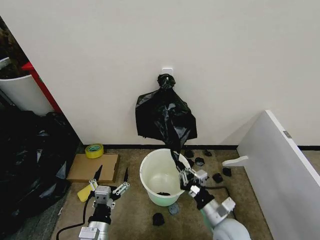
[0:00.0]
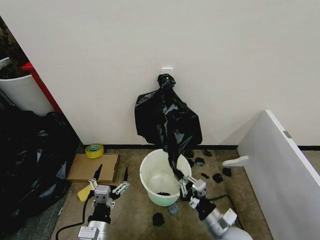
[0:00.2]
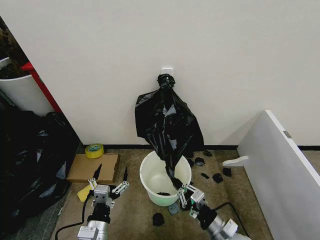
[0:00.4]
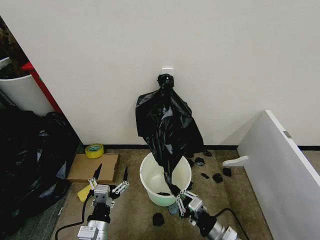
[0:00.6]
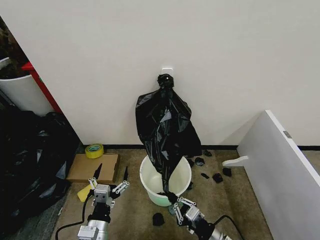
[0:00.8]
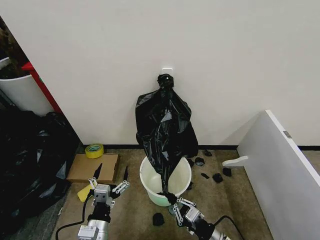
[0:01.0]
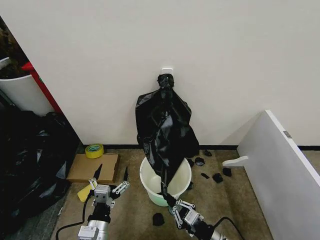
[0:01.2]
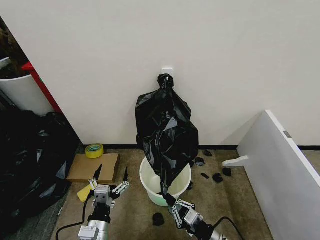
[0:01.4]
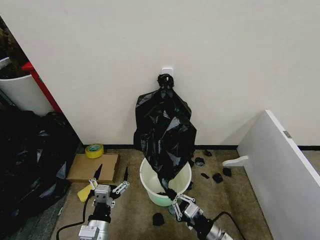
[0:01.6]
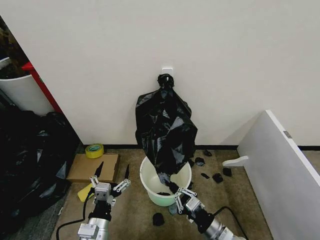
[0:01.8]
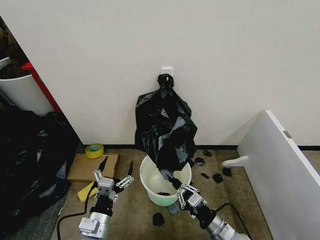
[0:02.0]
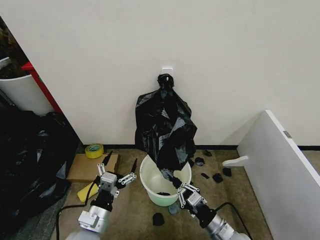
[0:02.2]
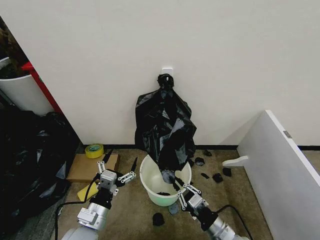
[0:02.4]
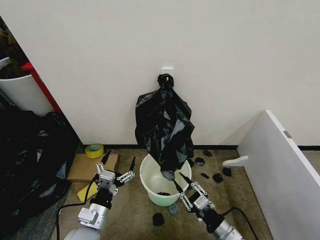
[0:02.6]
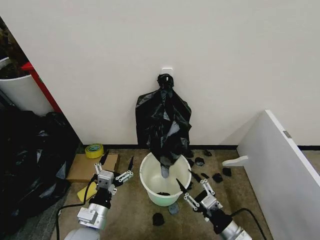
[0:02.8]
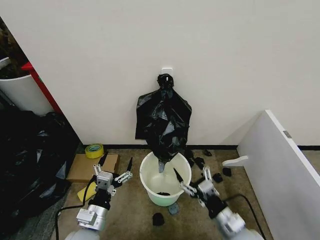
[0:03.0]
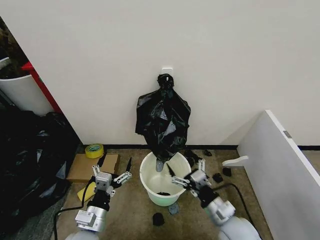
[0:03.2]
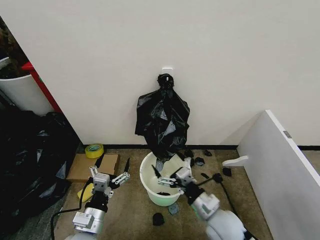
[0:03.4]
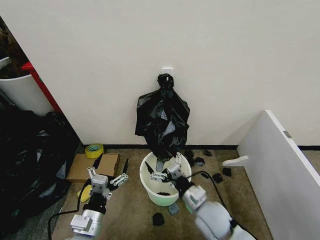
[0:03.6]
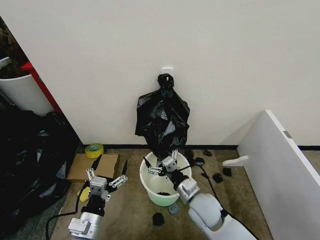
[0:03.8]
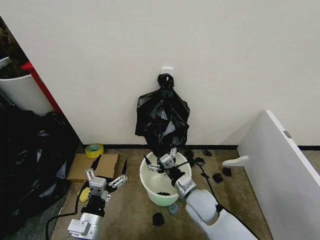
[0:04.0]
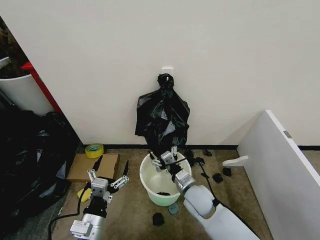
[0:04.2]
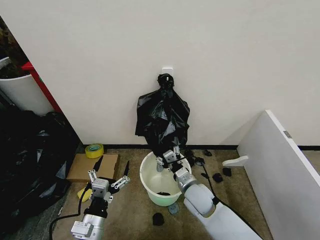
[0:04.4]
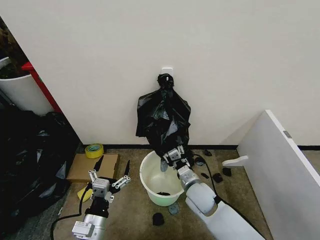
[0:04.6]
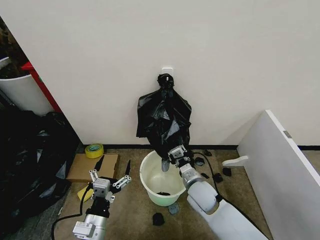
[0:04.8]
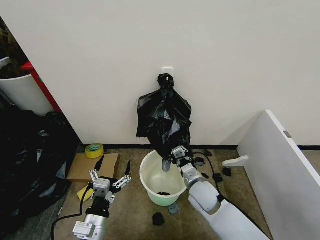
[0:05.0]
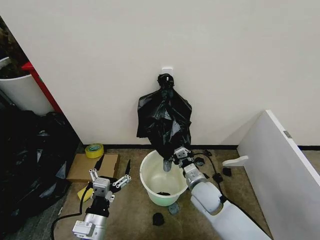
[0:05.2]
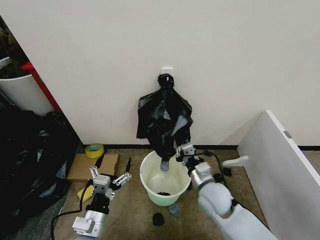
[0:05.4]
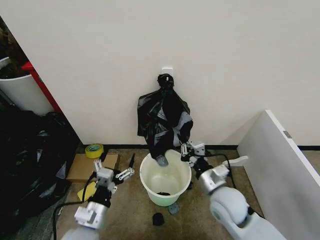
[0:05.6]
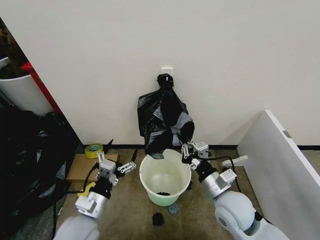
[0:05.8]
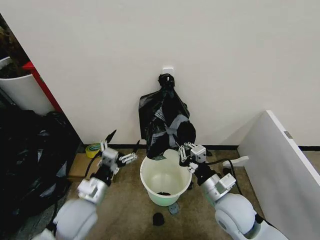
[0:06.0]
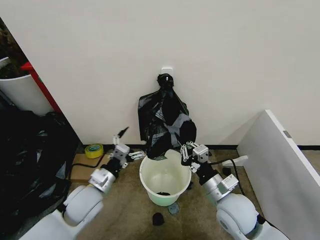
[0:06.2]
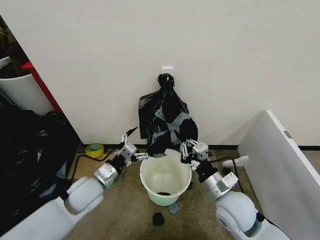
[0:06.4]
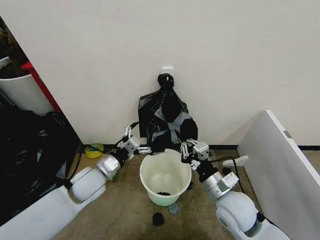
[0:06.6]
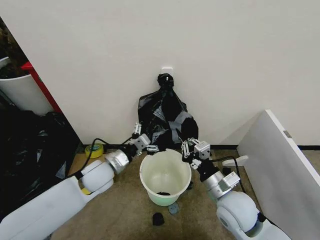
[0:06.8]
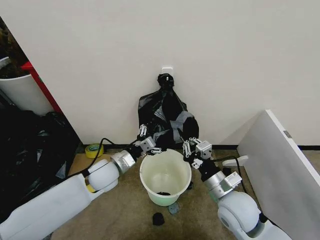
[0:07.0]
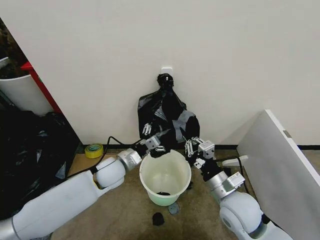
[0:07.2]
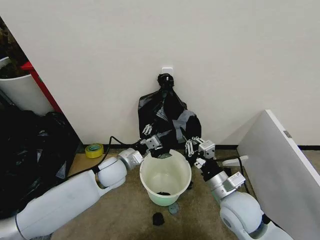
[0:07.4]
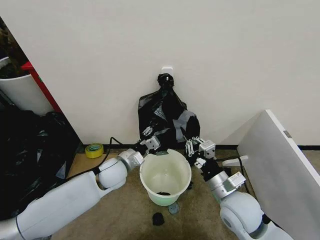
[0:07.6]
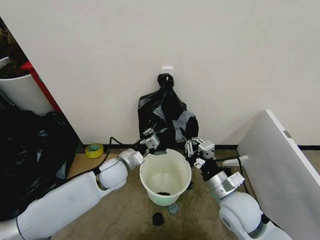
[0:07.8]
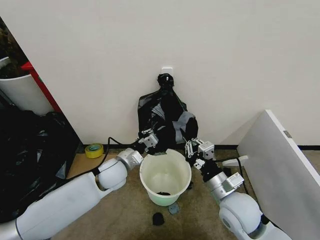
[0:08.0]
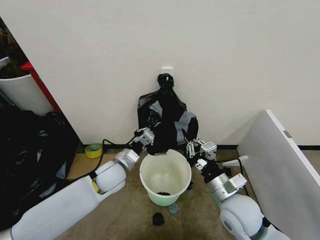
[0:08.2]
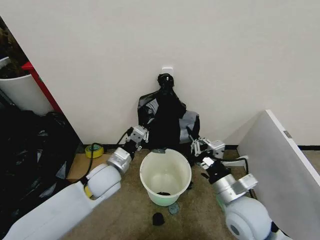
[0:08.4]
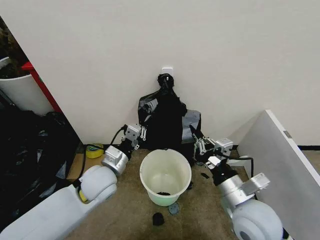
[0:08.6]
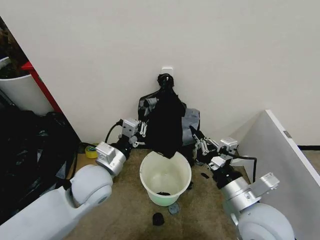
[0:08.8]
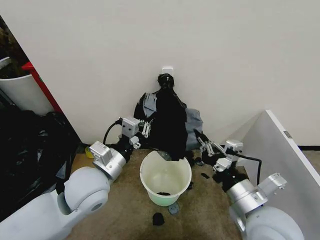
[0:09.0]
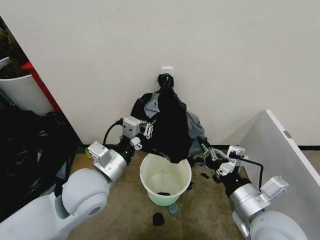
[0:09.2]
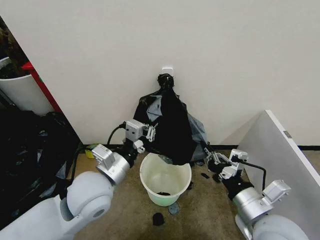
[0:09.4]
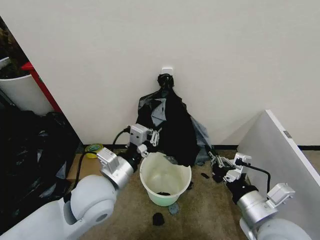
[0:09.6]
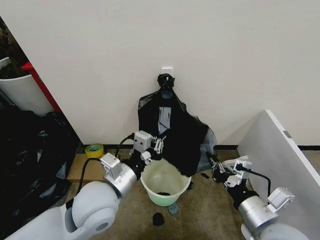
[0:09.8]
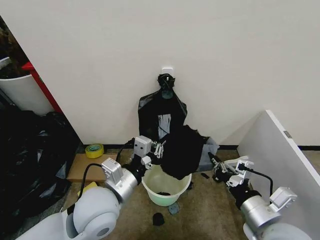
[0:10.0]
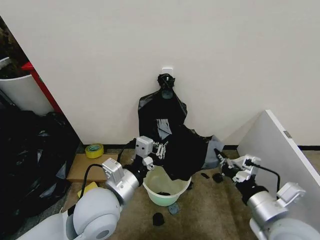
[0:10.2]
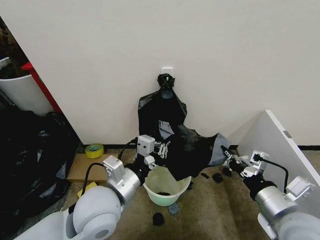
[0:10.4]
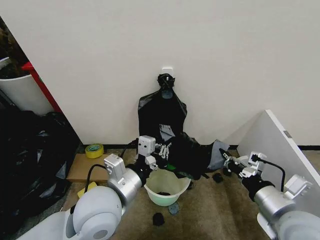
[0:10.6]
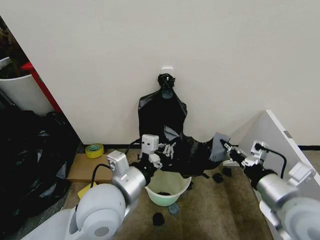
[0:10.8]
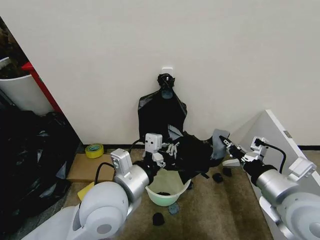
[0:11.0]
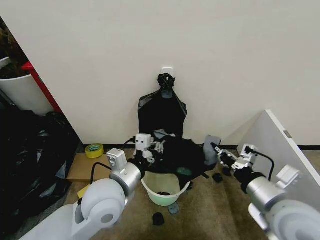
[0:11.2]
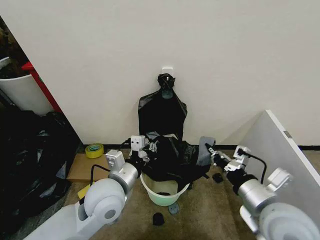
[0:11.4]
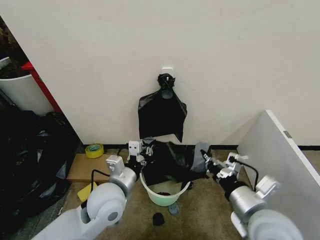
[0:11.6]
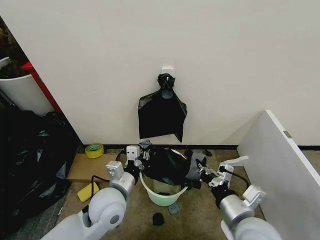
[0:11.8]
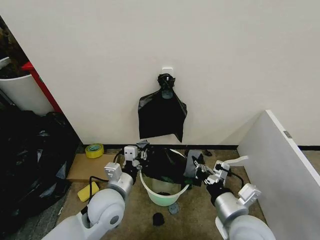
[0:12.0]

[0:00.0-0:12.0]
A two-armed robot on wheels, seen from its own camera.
Task of the whole recording: Place the garbage bag over the trash bin.
0:00.0 to 0:01.6: The right gripper is displaced backward by approximately 5 cm.
0:01.6 to 0:03.0: The right gripper moves upward, about 5 cm, and opens its fingers.
0:03.0 to 0:04.4: The right gripper heads forward and to the left, covering about 20 cm.
0:04.4 to 0:06.0: The right gripper moves upward, to the right and backward, roughly 15 cm, and closes up. The left gripper shifts about 10 cm forward.
0:06.0 to 0:07.6: The left gripper heads forward and to the right, covering about 15 cm, and closes.
0:07.6 to 0:09.0: The right gripper shifts approximately 10 cm upward and backward. The left gripper travels upward and backward by some 15 cm, and closes.
0:09.0 to 0:10.4: The left gripper changes place by about 5 cm; the right gripper is displaced to the right by about 5 cm.
0:10.4 to 0:12.0: The left gripper shifts some 10 cm downward, while the right gripper goes approximately 10 cm to the left and downward.

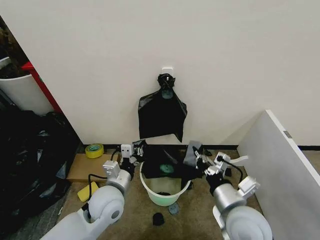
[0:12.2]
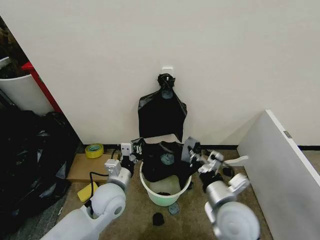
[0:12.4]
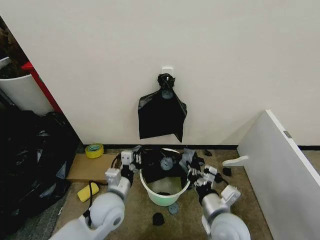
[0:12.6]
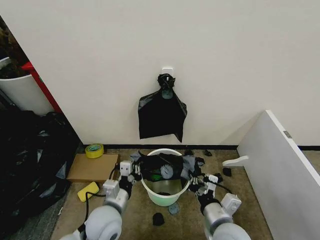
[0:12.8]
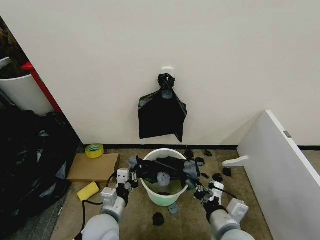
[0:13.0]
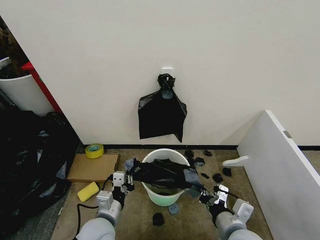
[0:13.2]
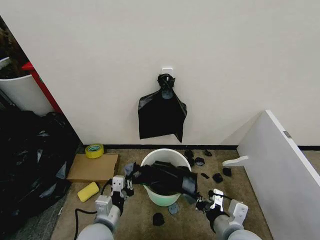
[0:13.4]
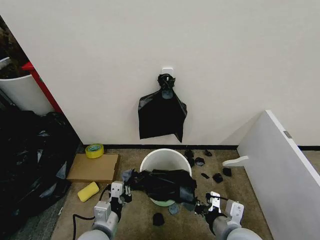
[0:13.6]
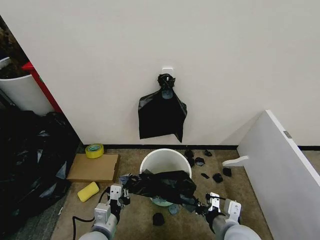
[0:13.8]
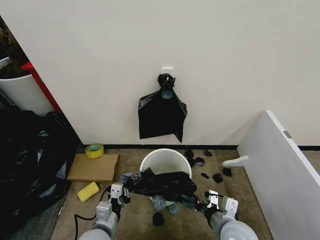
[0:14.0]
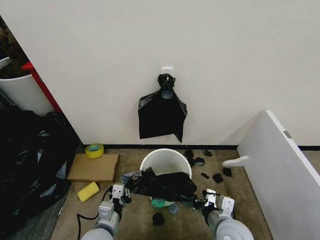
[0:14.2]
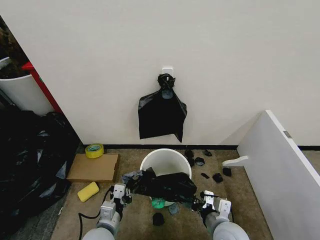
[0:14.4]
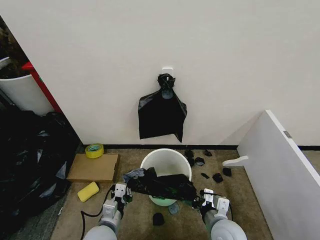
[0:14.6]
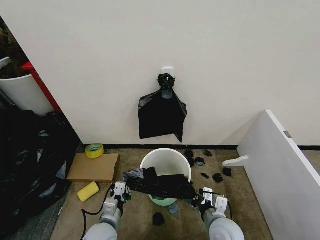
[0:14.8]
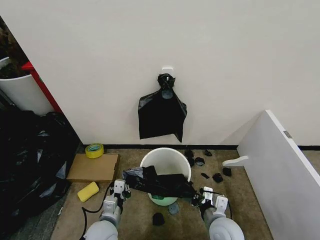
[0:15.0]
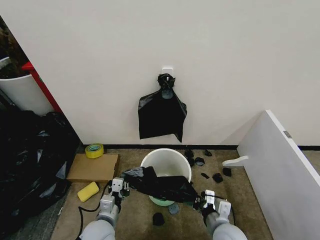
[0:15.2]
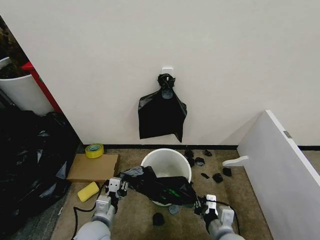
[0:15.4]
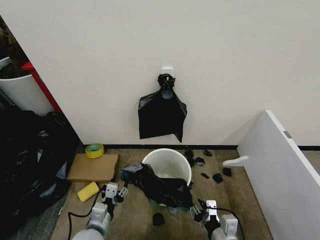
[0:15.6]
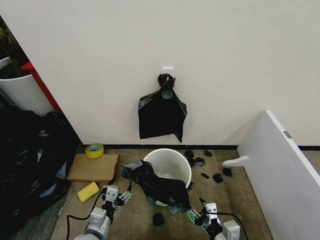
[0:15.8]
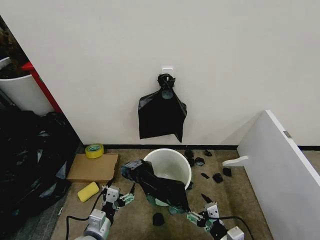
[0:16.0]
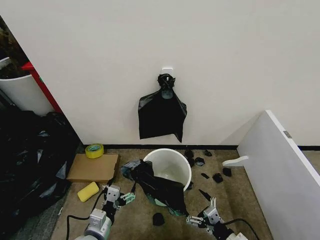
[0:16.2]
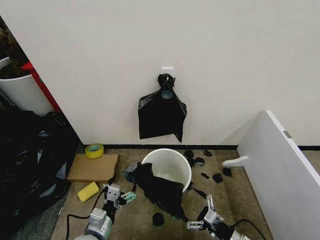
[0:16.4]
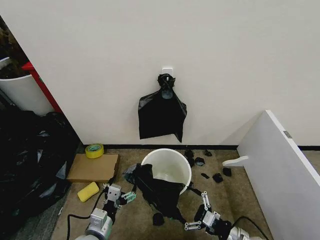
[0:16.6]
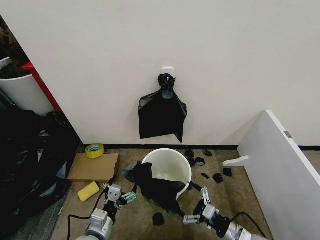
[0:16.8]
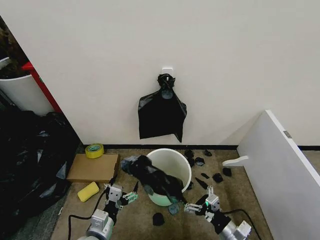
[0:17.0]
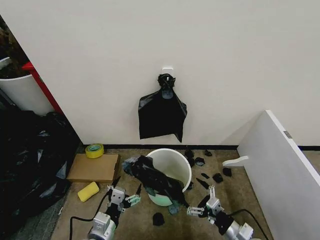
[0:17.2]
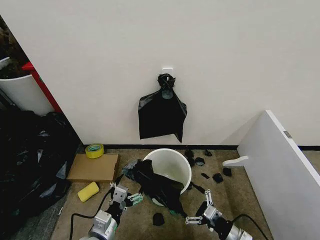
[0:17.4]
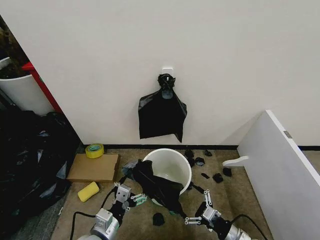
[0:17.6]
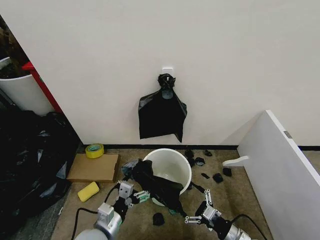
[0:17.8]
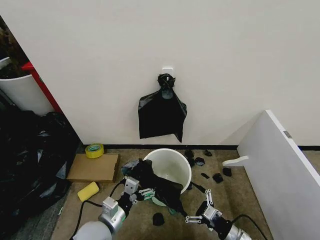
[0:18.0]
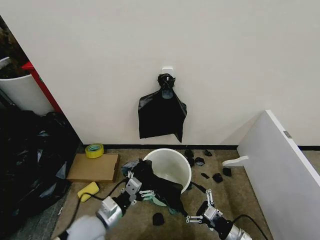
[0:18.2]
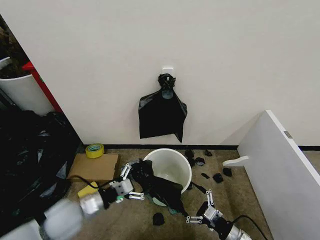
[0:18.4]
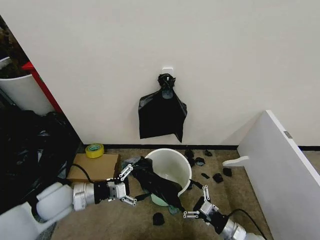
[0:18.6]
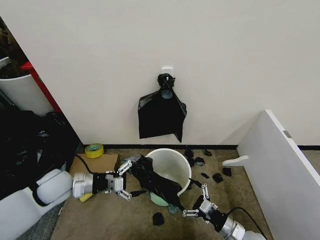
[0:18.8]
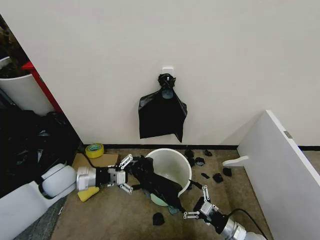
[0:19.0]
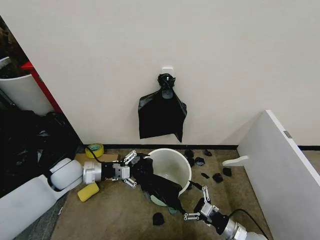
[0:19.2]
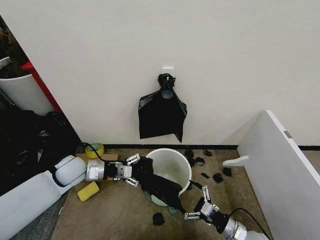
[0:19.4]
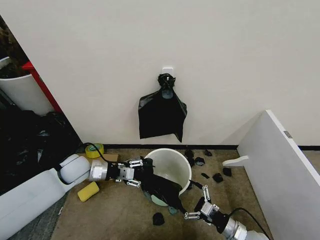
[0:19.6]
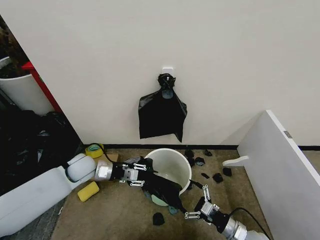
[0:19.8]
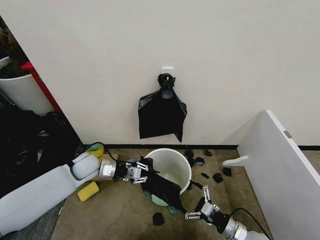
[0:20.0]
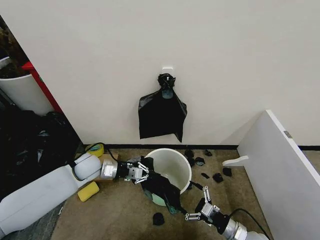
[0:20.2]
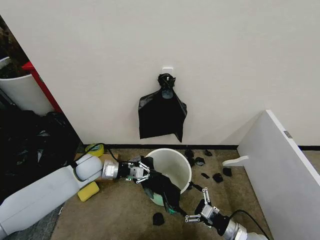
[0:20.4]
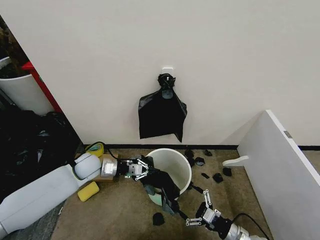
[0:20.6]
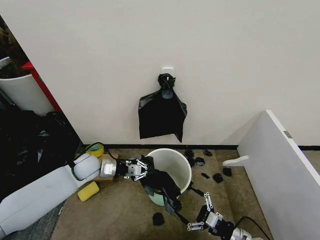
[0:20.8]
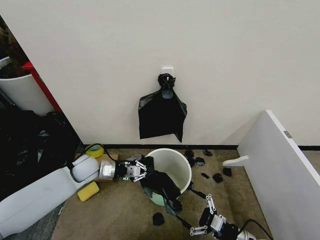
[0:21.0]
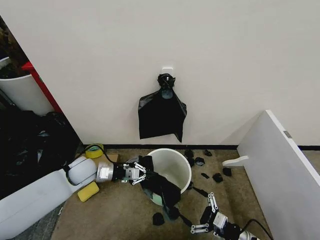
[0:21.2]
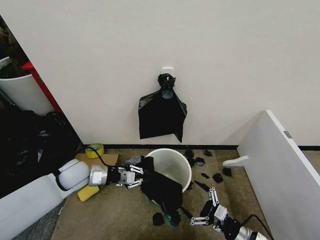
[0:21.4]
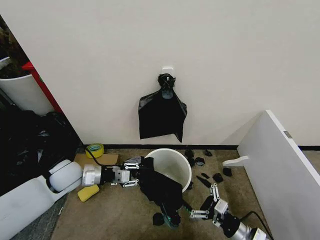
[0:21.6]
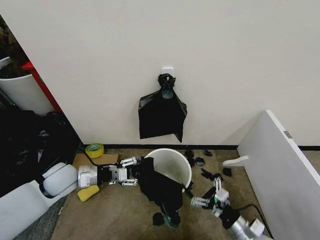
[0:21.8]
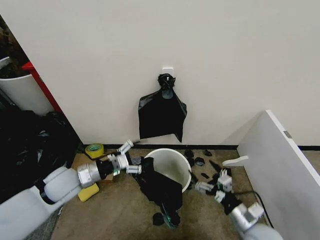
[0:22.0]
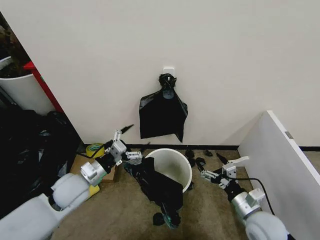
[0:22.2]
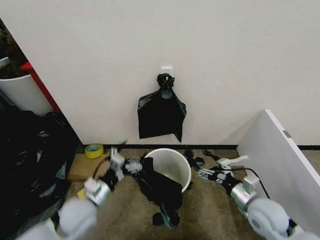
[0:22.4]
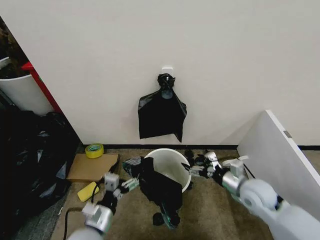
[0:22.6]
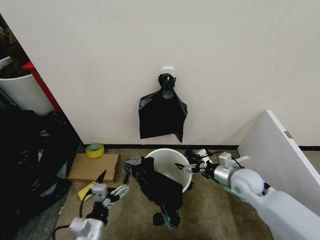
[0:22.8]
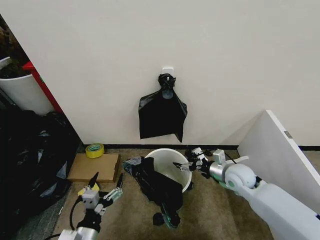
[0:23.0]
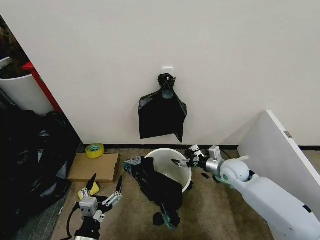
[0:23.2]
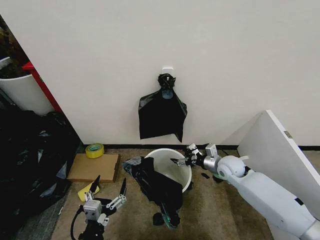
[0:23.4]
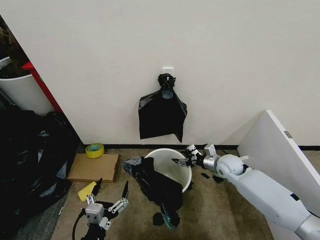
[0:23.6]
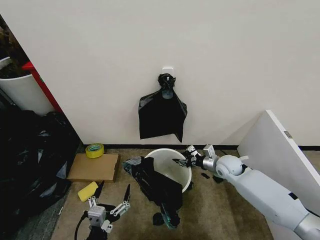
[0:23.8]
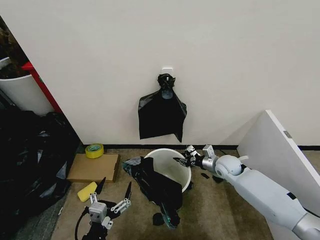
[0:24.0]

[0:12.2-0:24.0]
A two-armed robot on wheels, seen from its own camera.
Task of the whole recording: Place the garbage bag over the trash bin.
0:12.2 to 0:13.6: The left gripper moves backward and downward, about 10 cm; the right gripper shifts roughly 5 cm downward.
0:13.6 to 0:15.2: The right gripper moves downward, some 5 cm. The left gripper ends up about 5 cm from where it was.
0:15.2 to 0:16.6: The right gripper shifts roughly 10 cm to the right and downward, and opens up. Meanwhile the left gripper moves approximately 5 cm, and opens up.
0:16.6 to 0:18.2: The left gripper changes place by approximately 5 cm.
0:18.2 to 0:19.6: The left gripper moves forward and to the left, some 20 cm.
0:19.6 to 0:21.0: The left gripper closes its fingers.
0:21.0 to 0:22.6: The left gripper moves backward, roughly 20 cm, and opens, while the right gripper heads upward and forward, covering approximately 15 cm.
0:22.6 to 0:24.0: The left gripper travels backward by roughly 10 cm. The right gripper moves forward, about 15 cm, and closes its fingers.
